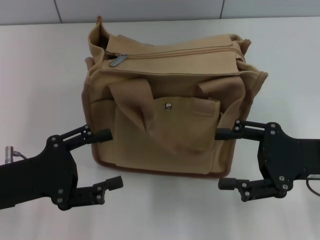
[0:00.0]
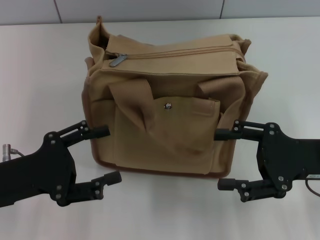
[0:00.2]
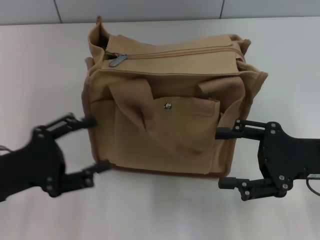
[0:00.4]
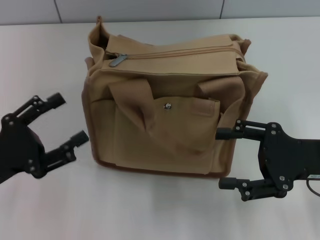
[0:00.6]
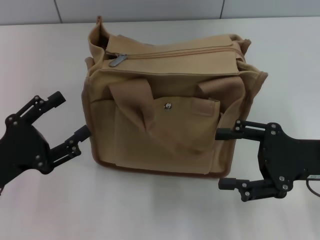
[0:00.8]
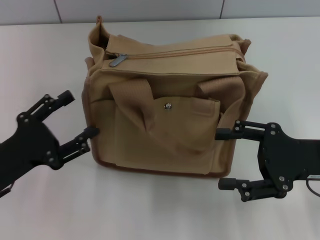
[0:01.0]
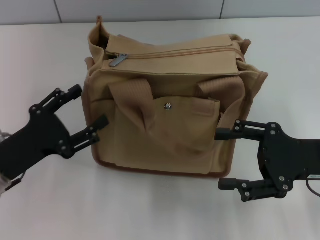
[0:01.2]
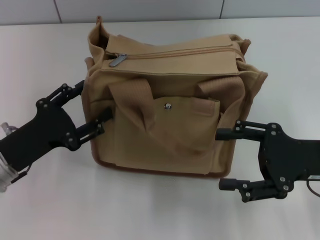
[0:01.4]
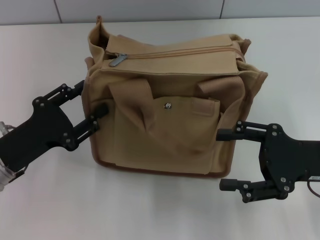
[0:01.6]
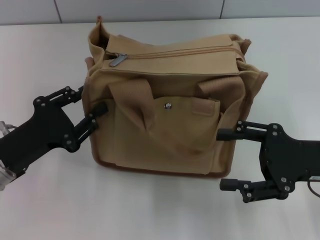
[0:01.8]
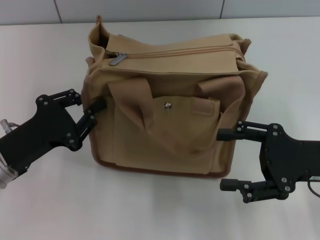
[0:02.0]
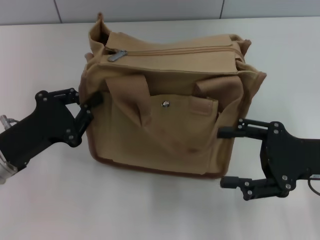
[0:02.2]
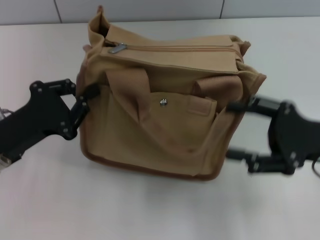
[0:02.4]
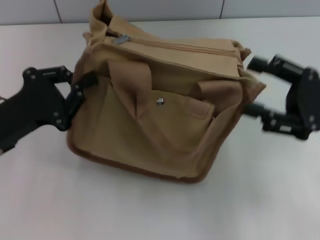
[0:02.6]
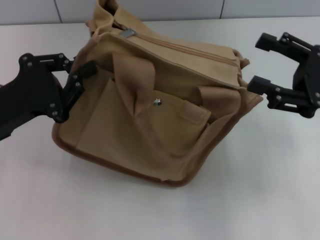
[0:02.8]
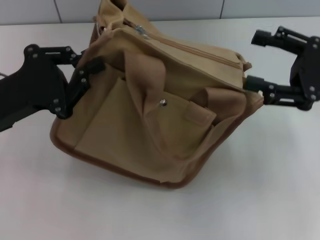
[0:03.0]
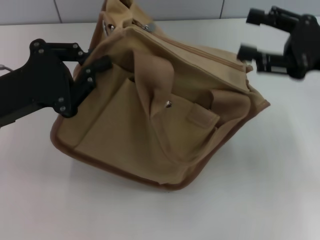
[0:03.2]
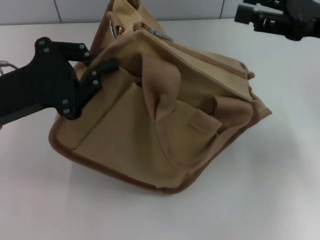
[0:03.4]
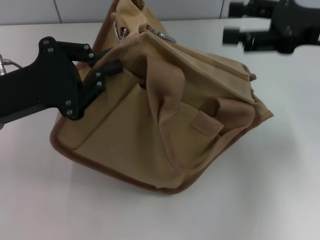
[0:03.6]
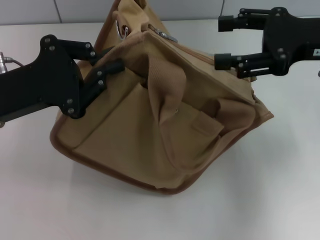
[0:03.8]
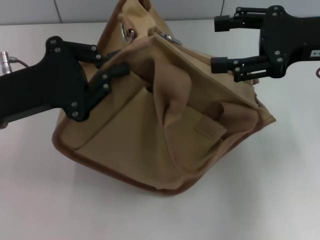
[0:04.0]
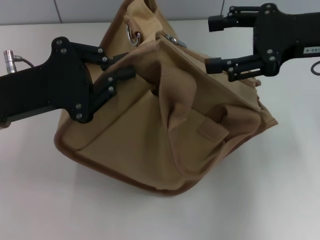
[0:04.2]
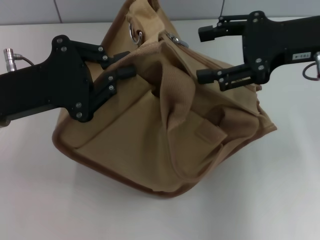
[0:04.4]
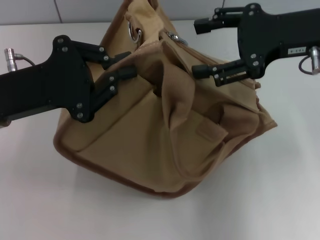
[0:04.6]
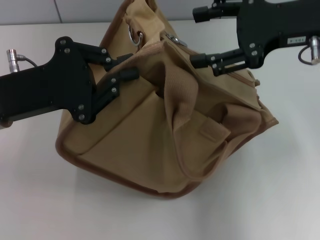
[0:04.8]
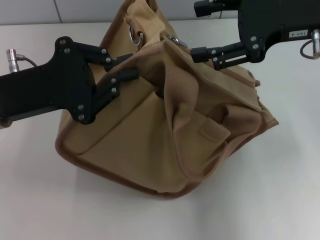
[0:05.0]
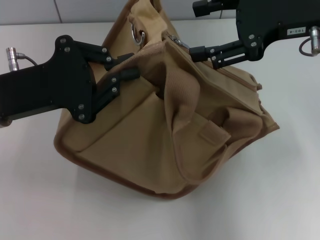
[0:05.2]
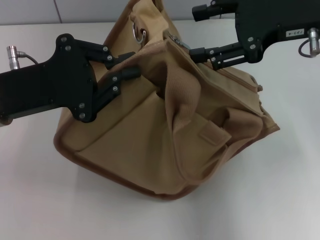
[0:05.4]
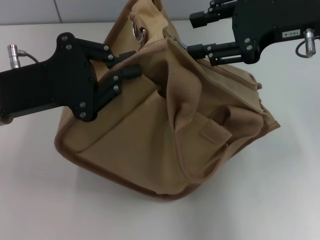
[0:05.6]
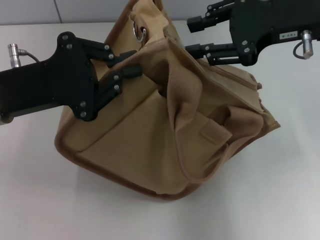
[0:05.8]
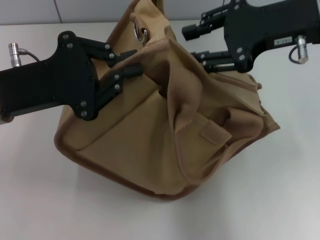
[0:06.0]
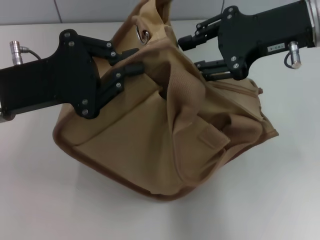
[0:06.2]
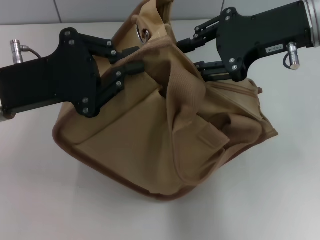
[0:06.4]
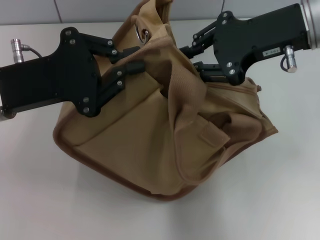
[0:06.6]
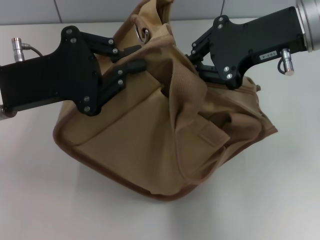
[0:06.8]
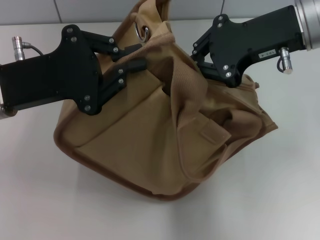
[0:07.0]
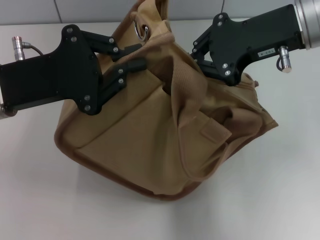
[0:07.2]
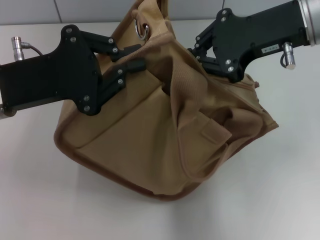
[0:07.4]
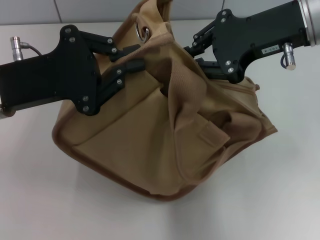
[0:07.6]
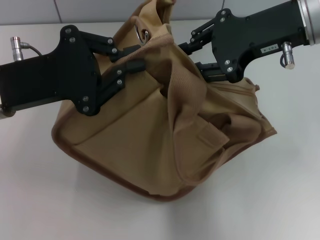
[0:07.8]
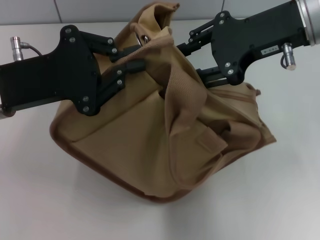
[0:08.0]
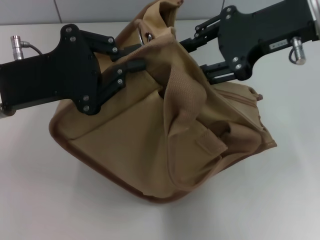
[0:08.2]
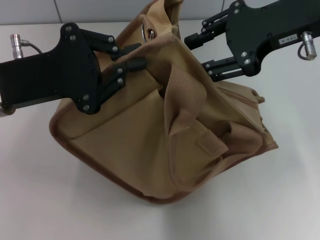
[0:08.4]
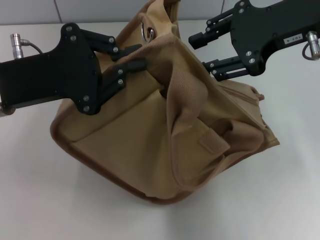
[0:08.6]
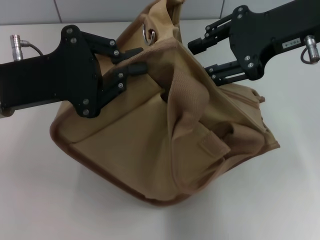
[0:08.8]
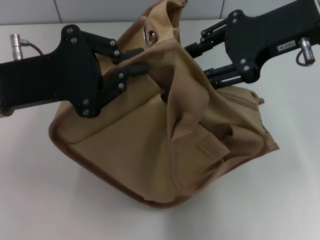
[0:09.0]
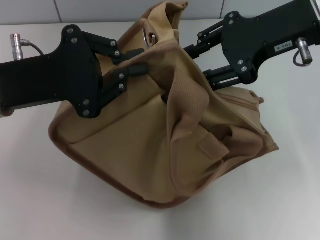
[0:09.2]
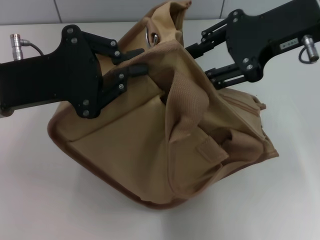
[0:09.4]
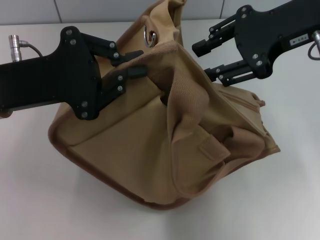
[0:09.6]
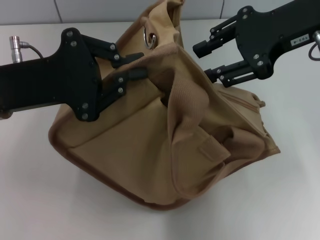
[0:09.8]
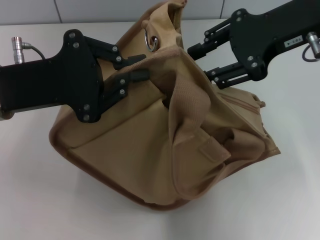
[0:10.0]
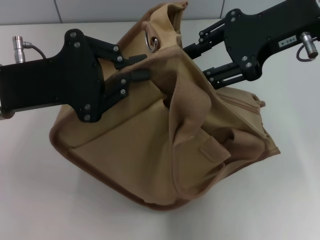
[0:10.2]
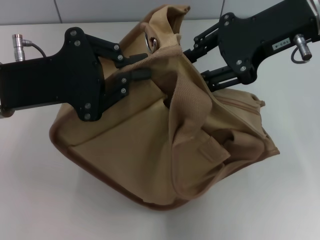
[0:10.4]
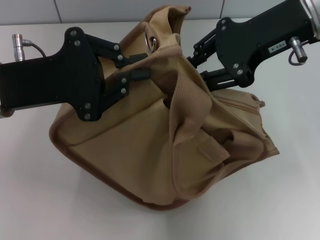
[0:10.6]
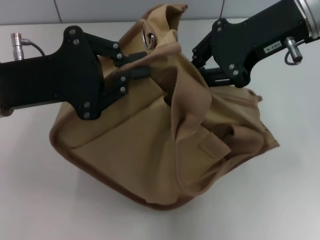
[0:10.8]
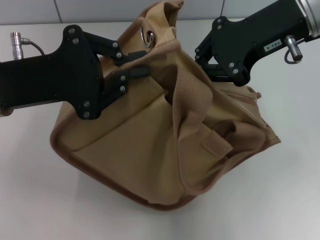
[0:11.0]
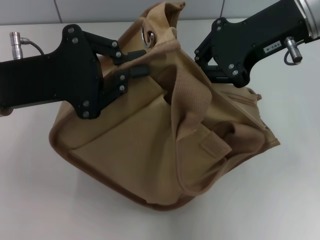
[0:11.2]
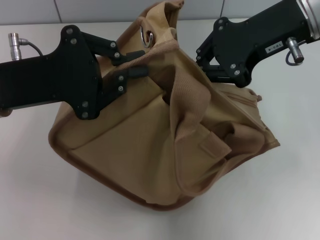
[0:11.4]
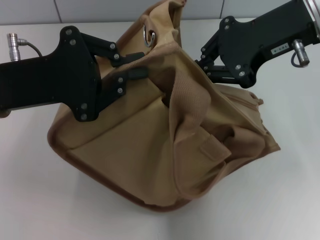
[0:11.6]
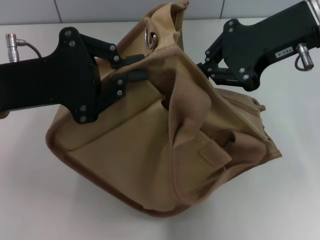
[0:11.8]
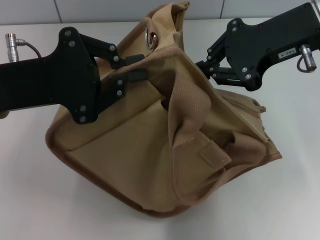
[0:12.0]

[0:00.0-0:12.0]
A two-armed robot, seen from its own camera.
0:01.6 to 0:03.0: Both grippers move upward, about 5 cm. The left gripper closes up.
0:03.0 to 0:04.4: The right gripper goes approximately 10 cm upward, to the left and forward.
0:04.4 to 0:06.0: The right gripper closes up.
0:06.0 to 0:07.6: The right gripper closes up.
0:07.6 to 0:09.0: The right gripper opens its fingers.
0:09.0 to 0:10.4: The grippers move only a little.
0:10.4 to 0:12.0: The right gripper closes its fingers.

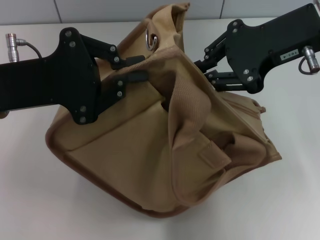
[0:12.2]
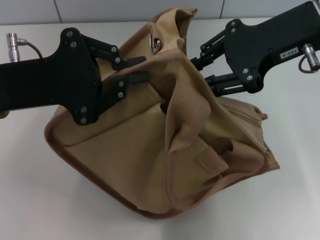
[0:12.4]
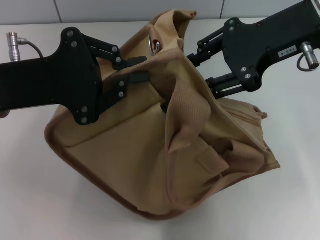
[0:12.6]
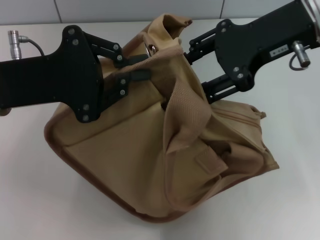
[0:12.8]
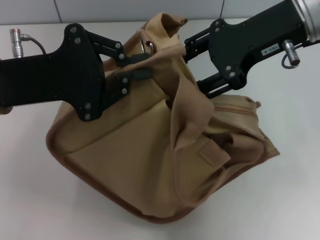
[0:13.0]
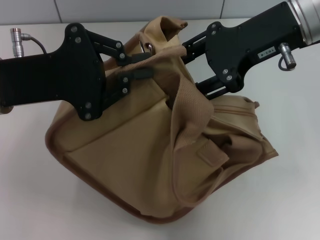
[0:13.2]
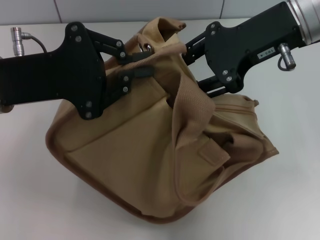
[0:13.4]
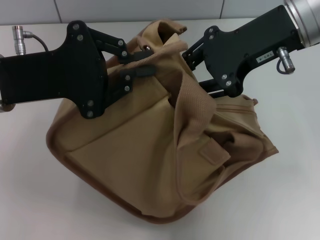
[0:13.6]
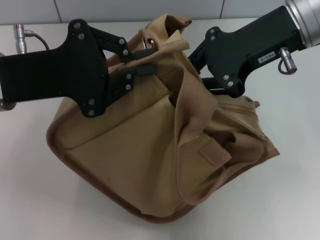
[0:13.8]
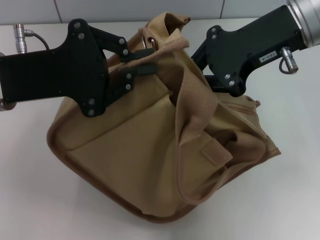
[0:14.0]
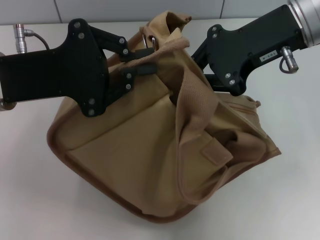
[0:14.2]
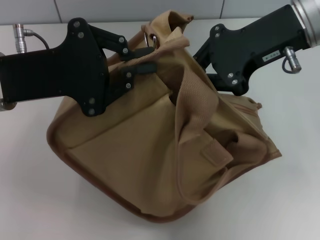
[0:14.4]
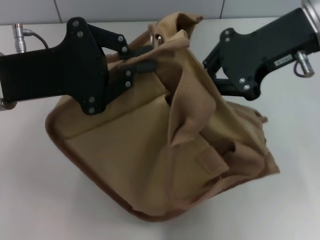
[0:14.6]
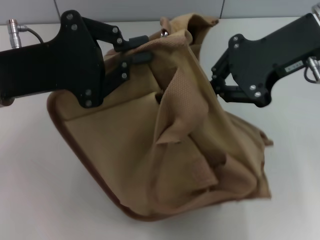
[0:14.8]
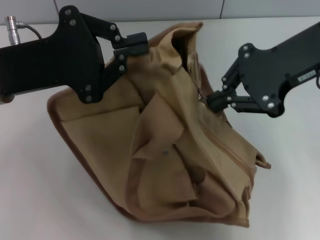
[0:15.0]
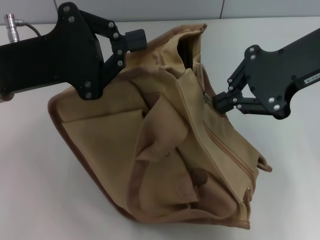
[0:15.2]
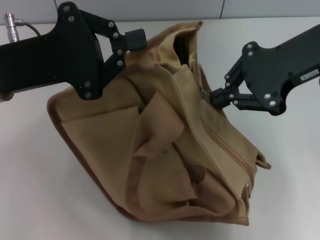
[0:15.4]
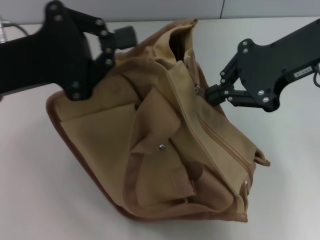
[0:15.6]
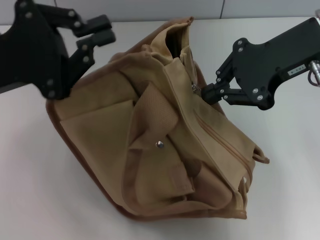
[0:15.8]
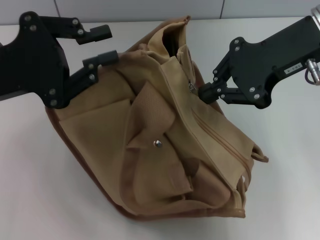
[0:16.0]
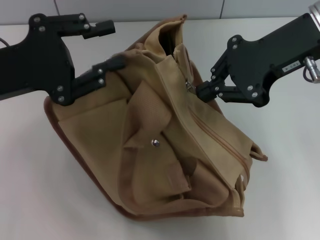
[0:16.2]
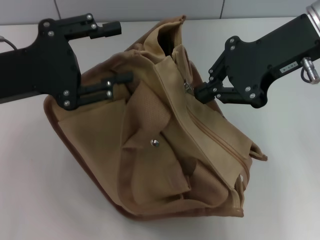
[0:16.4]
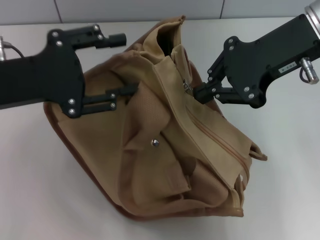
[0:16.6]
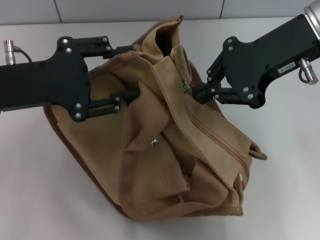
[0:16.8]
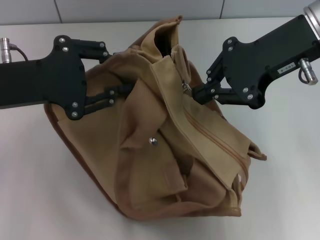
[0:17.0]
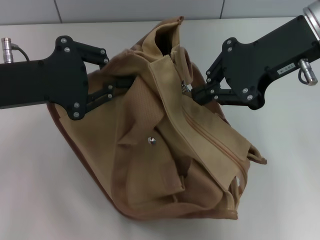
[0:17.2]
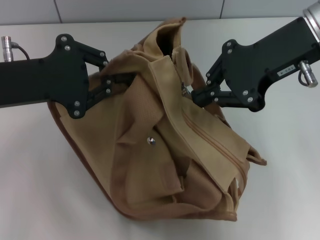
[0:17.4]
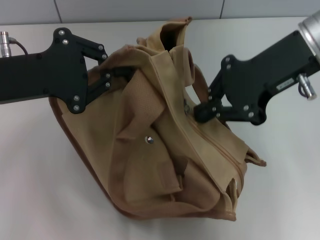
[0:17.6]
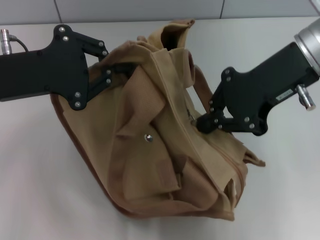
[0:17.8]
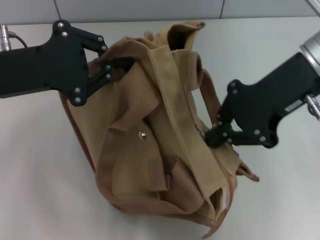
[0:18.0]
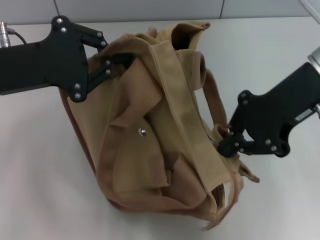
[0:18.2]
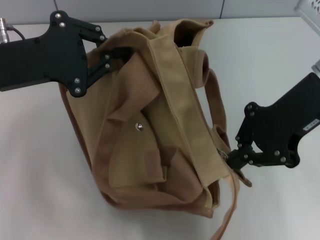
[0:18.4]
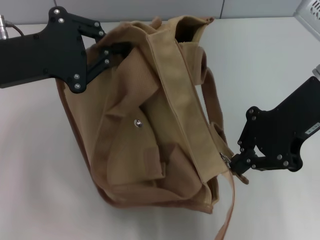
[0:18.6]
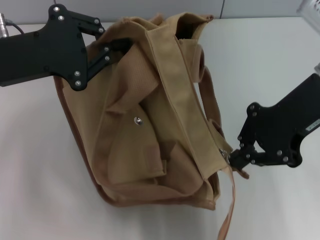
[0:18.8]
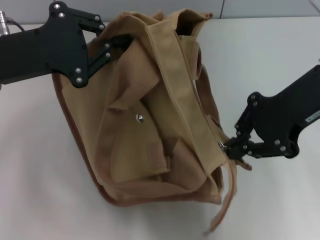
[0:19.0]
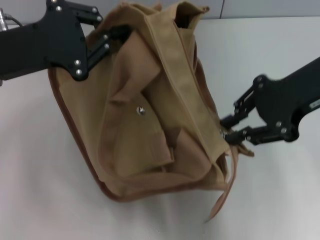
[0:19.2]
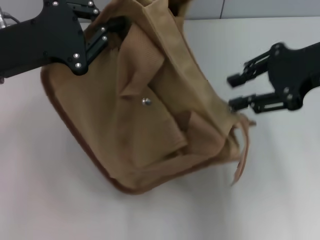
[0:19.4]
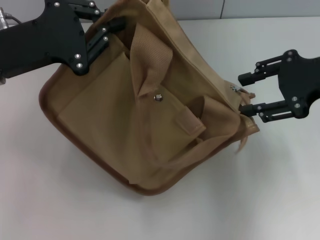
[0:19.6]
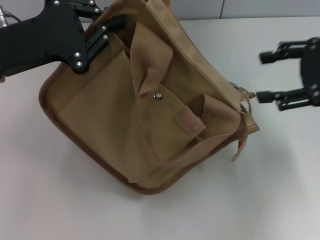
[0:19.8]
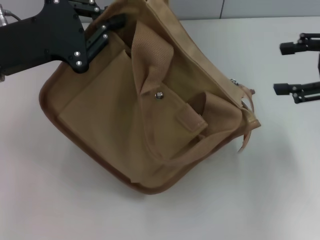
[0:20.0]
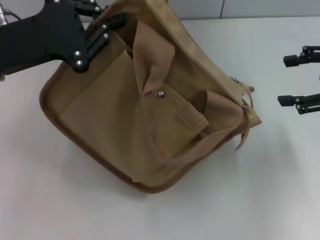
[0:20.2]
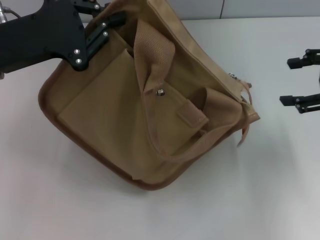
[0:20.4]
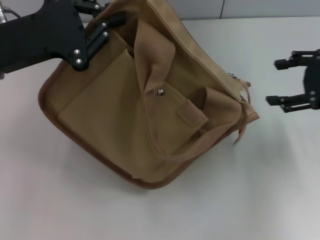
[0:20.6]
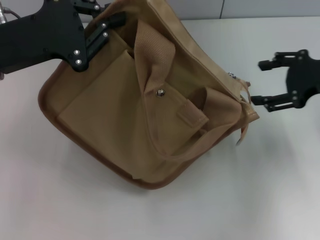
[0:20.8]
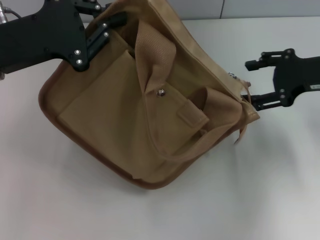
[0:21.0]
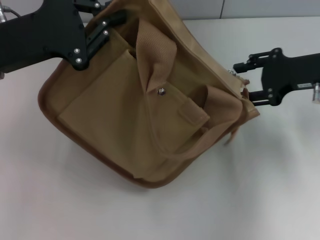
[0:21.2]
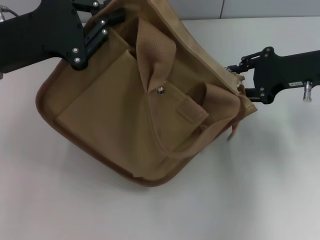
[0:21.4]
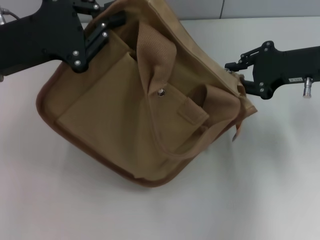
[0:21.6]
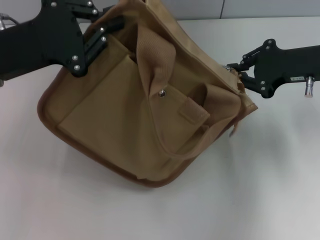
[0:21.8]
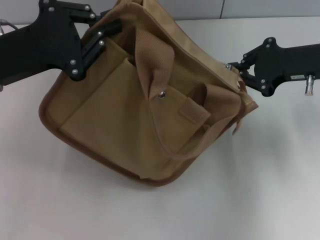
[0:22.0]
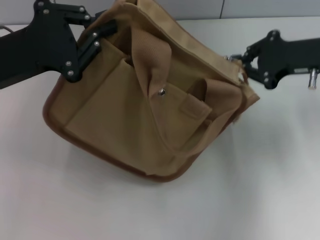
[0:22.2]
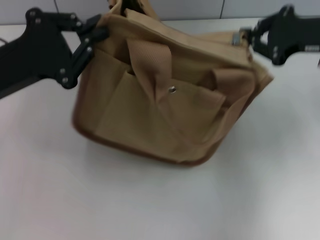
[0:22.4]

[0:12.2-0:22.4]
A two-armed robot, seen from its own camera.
Step, 0:12.2 to 0:19.8: Pull open the zipper with your right hand.
0:12.2 to 0:13.6: The right gripper opens its fingers.
0:13.6 to 0:15.2: The right gripper closes its fingers.
0:15.2 to 0:16.6: The left gripper opens its fingers.
0:16.6 to 0:18.0: The left gripper closes.
0:18.0 to 0:19.4: The right gripper heads to the right, covering some 5 cm.
0:19.4 to 0:21.0: The right gripper moves downward, about 10 cm, and opens up.
0:21.0 to 0:22.4: The right gripper closes its fingers.
